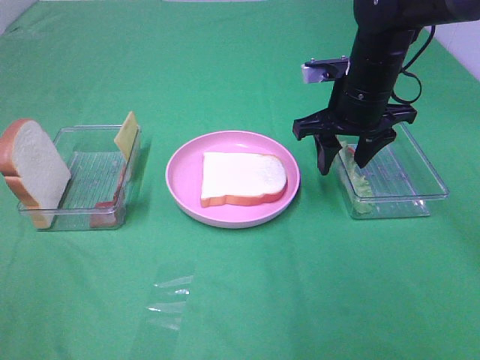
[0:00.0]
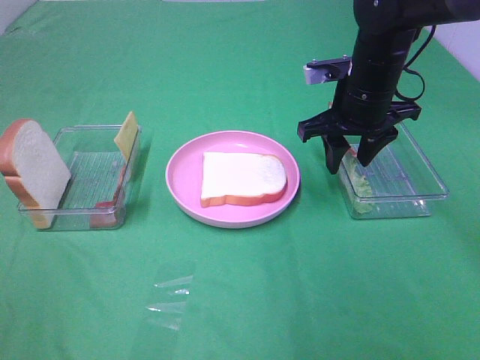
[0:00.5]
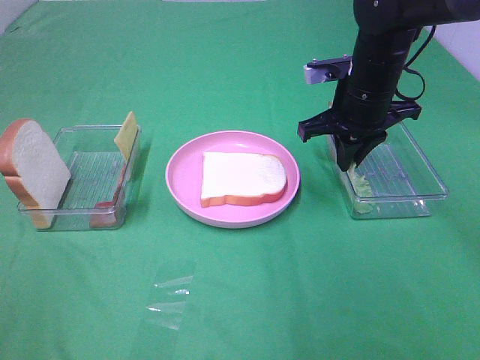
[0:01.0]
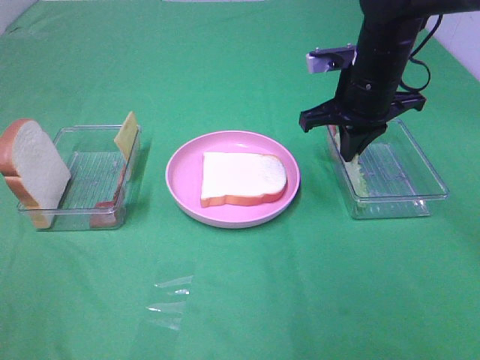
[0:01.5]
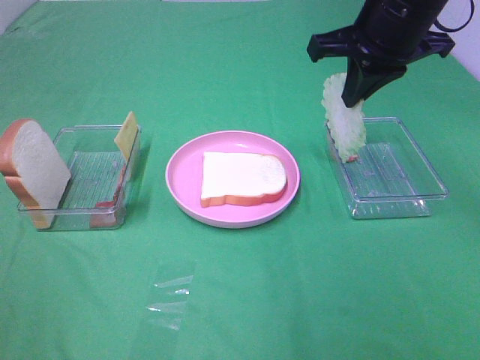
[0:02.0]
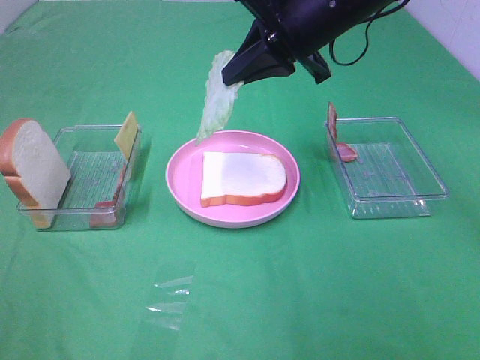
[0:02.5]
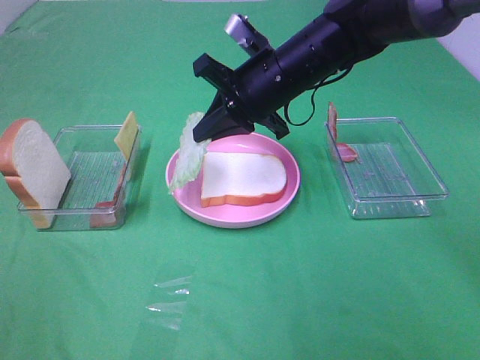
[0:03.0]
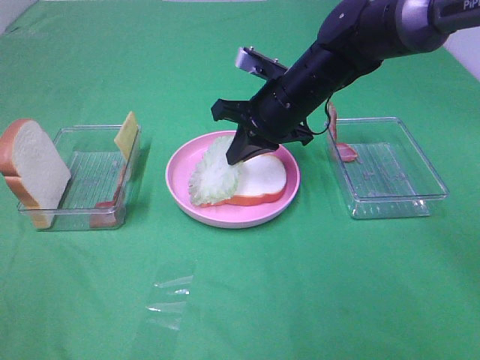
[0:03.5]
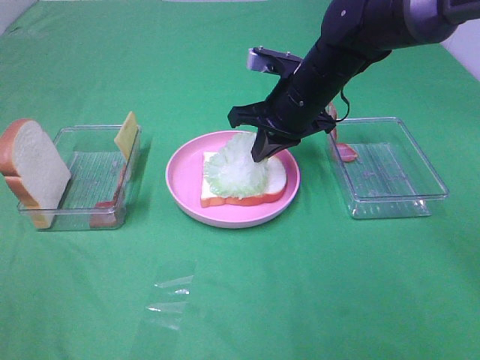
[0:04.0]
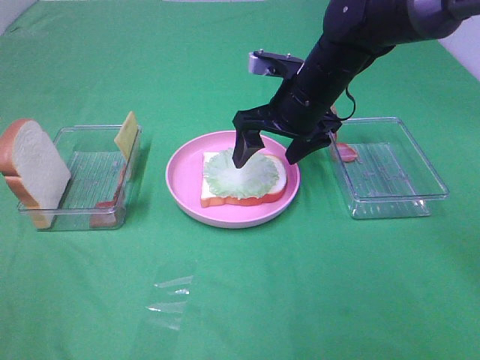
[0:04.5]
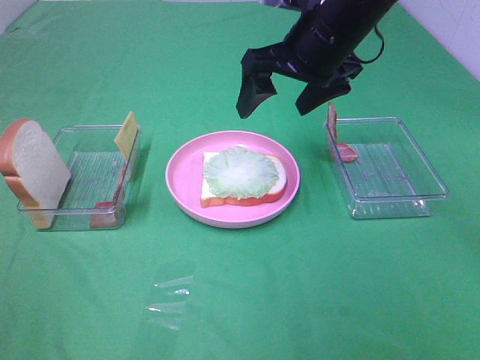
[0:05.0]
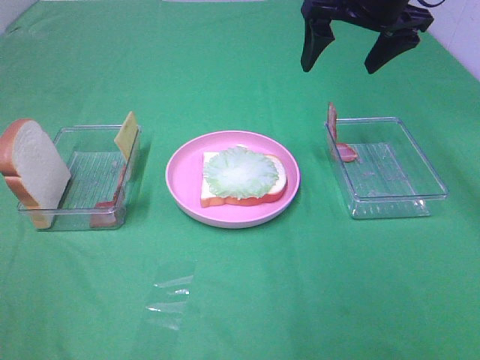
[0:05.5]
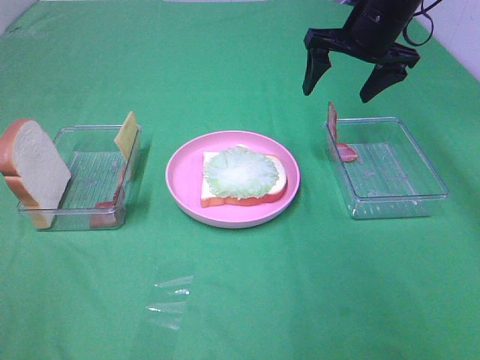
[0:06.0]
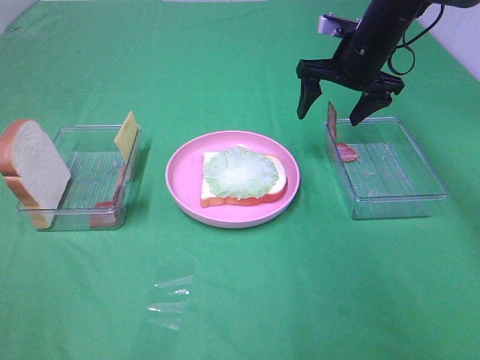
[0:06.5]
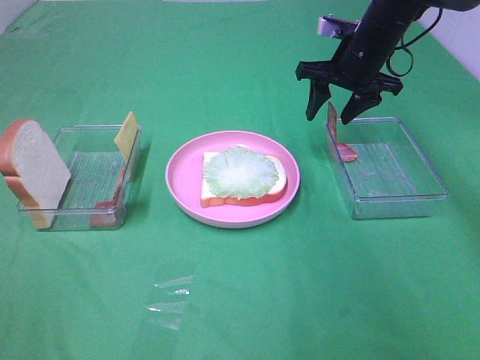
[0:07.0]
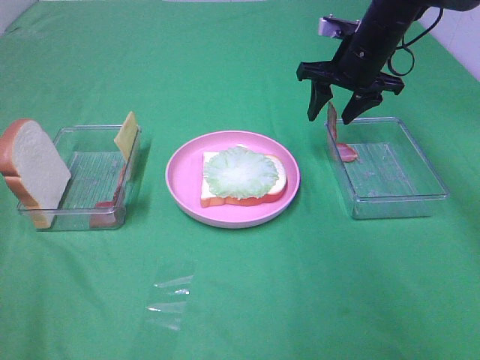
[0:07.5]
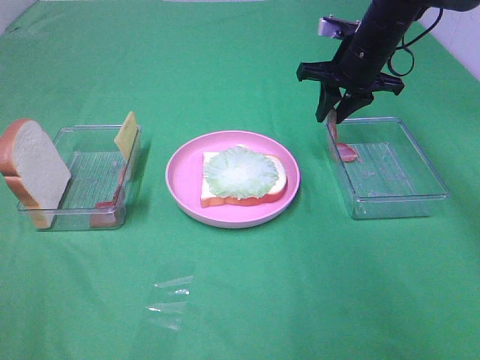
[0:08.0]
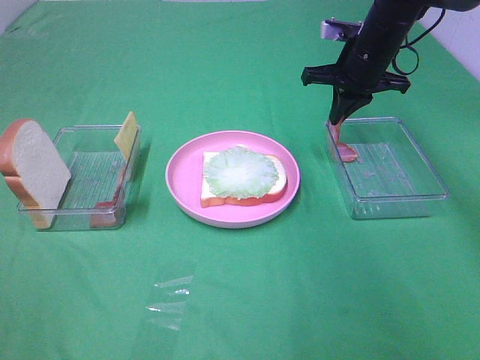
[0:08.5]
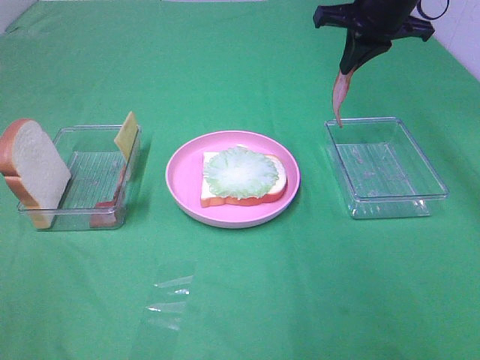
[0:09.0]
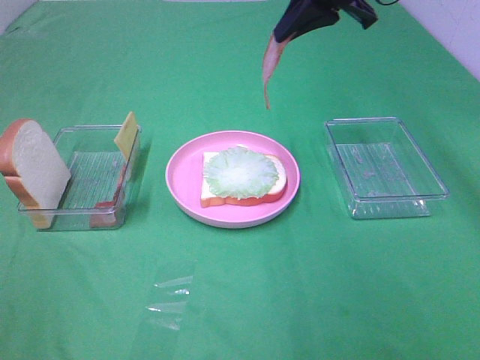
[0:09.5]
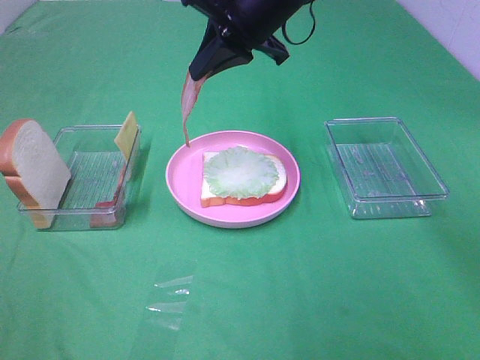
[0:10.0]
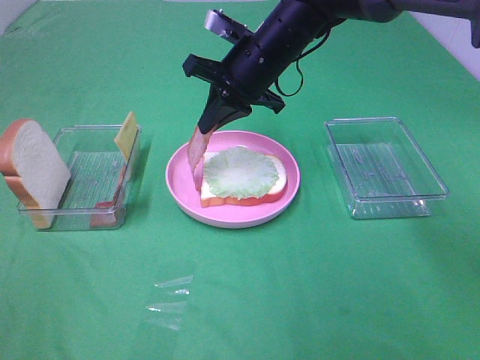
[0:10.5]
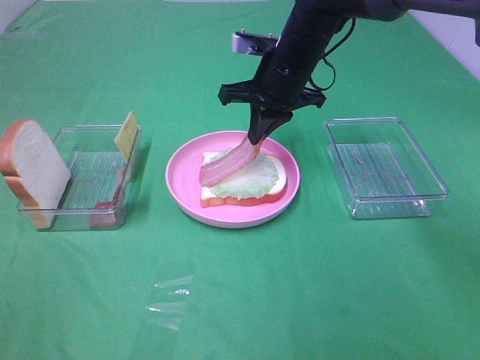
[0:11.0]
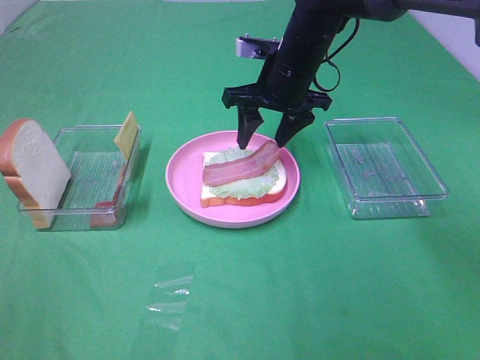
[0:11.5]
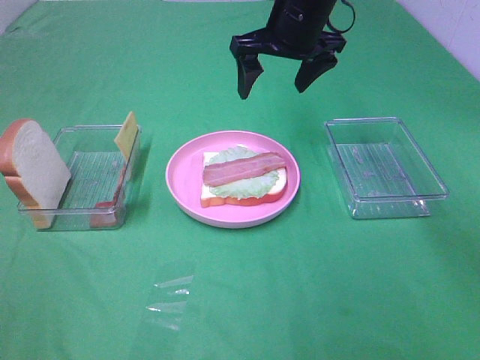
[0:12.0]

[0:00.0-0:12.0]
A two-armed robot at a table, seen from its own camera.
Task of the whole recording: Make sandwiches.
Step, 0:02.0 to 0:04.5: Right hand:place the lettuce slice on the bread slice.
Step, 0:05.0 to 0:08.5: Right hand:grab the bacon.
Step, 0:09.0 to 0:11.5: Right hand:place bacon on lettuce slice.
0:00.0 to 0:02.0: The right gripper travels upward by roughly 10 cm, and closes its fingers.
0:02.0 to 0:04.0: The right gripper goes approximately 15 cm downward and to the left.
0:04.0 to 0:06.0: The right gripper moves to the right, upward and forward, roughly 15 cm, and opens its fingers.
0:06.0 to 0:08.0: The right gripper shifts by some 5 cm, and closes up.
0:08.0 to 0:10.0: The right gripper heads to the left, upward and backward, covering about 20 cm, and closes.
0:10.0 to 0:12.0: The right gripper goes downward and returns, some 10 cm each way, and opens.

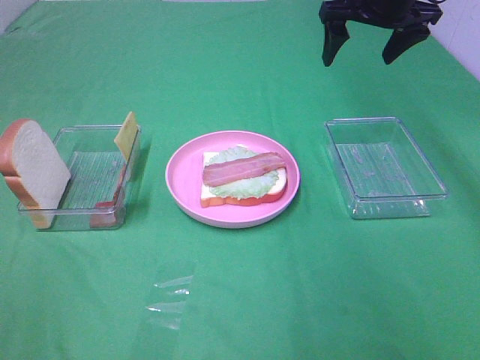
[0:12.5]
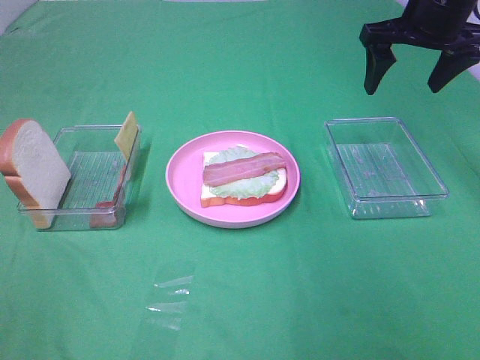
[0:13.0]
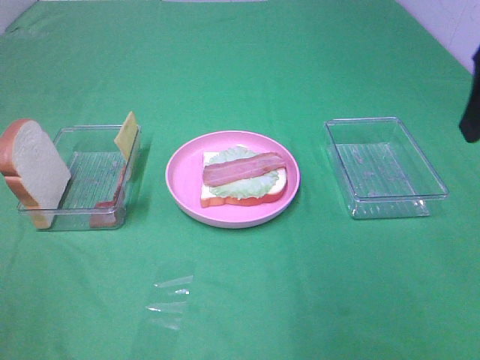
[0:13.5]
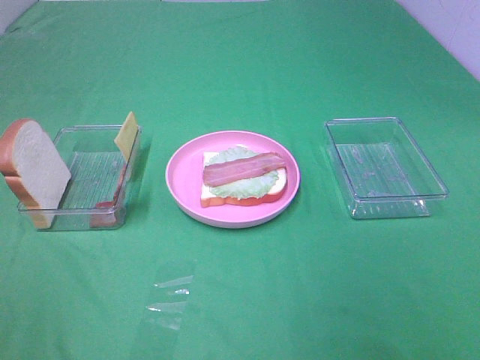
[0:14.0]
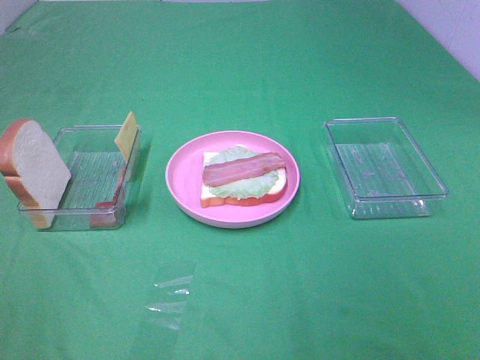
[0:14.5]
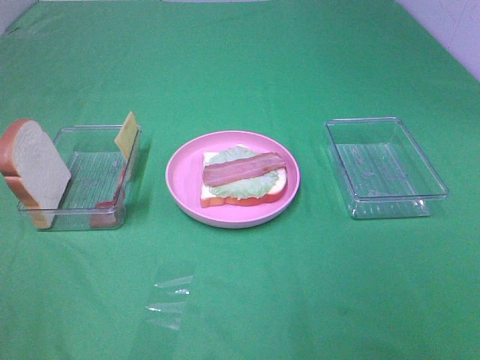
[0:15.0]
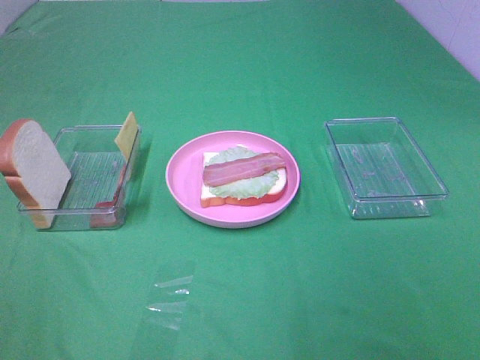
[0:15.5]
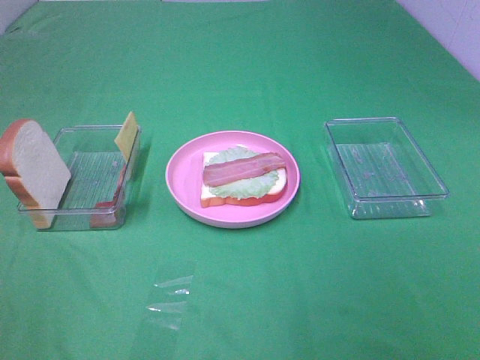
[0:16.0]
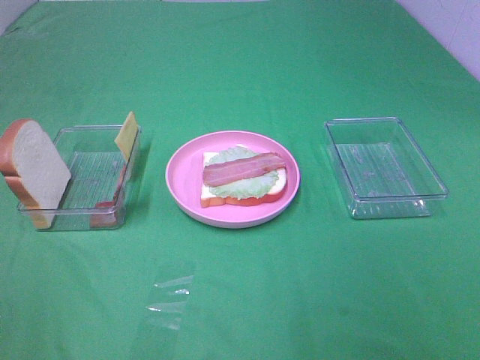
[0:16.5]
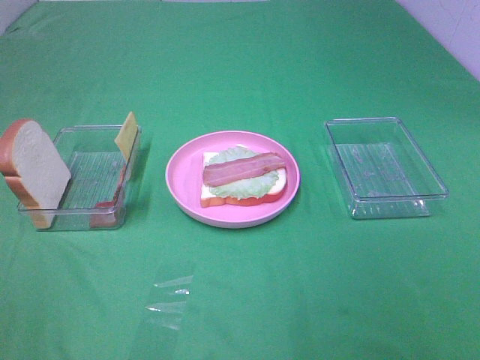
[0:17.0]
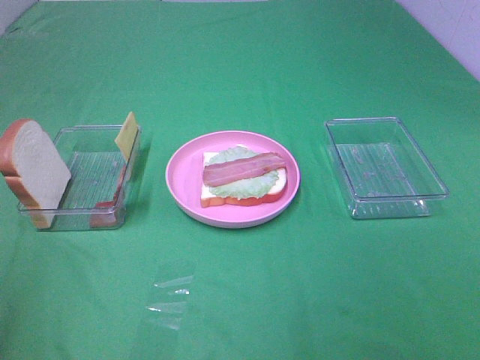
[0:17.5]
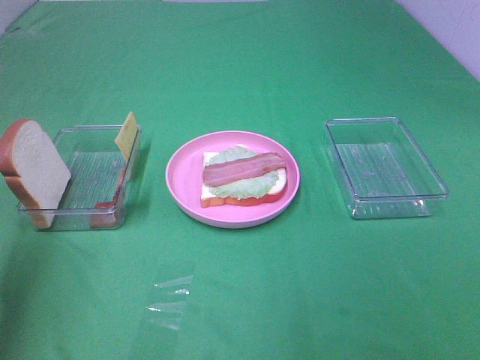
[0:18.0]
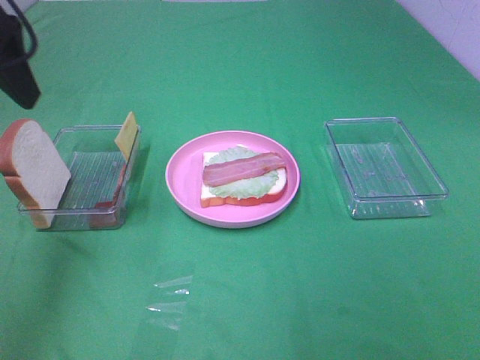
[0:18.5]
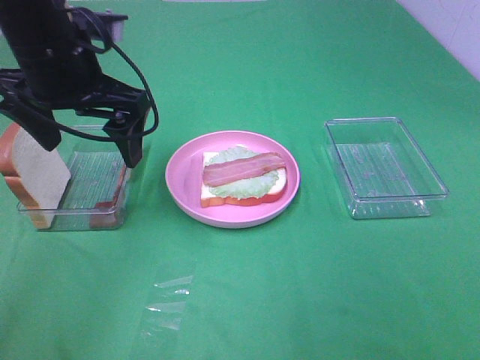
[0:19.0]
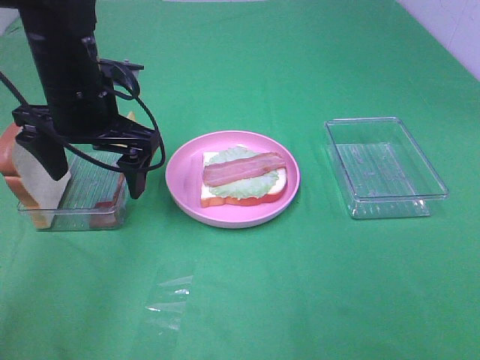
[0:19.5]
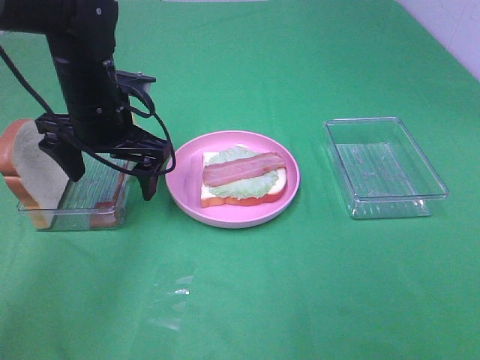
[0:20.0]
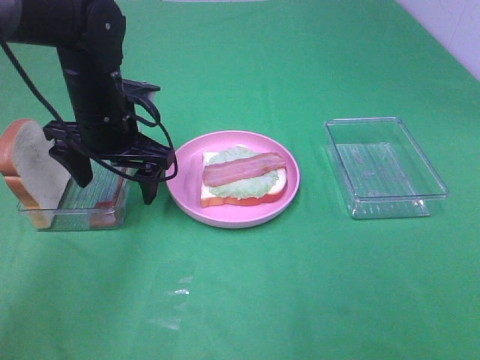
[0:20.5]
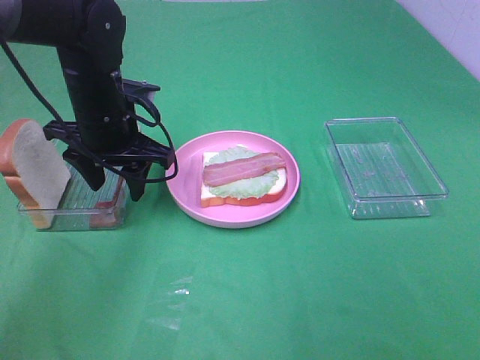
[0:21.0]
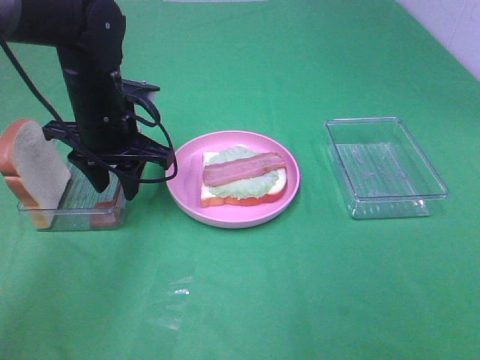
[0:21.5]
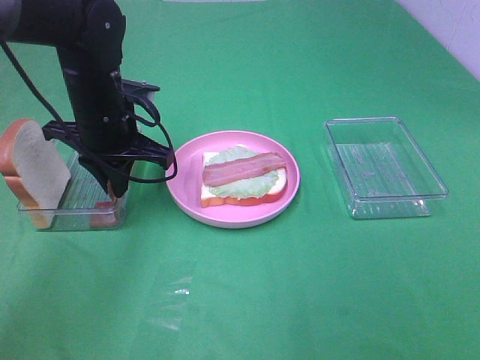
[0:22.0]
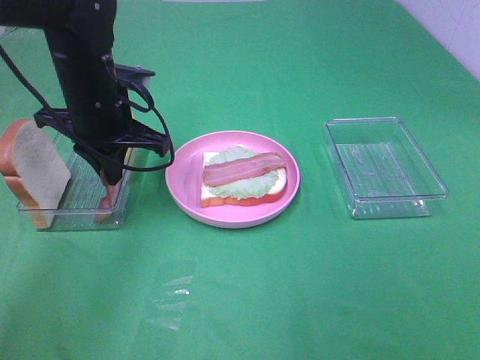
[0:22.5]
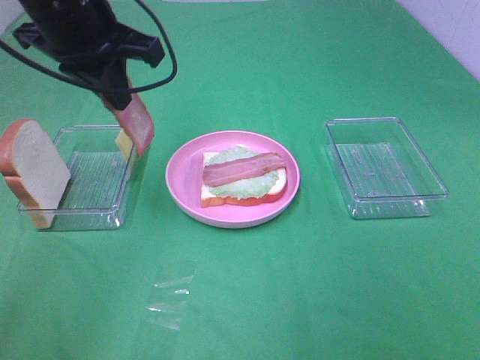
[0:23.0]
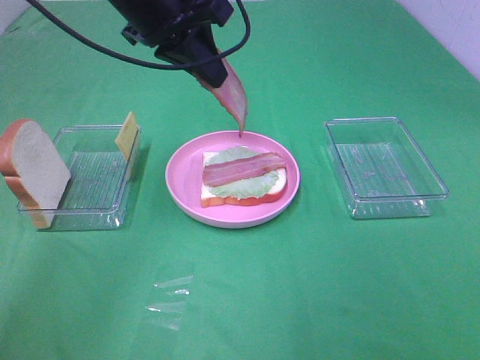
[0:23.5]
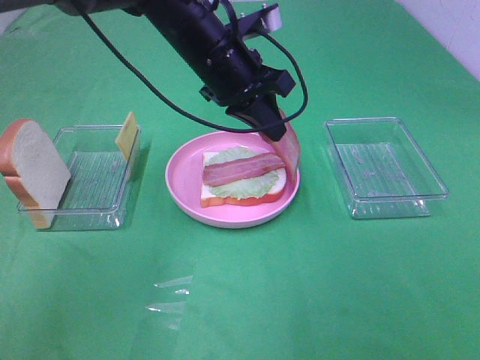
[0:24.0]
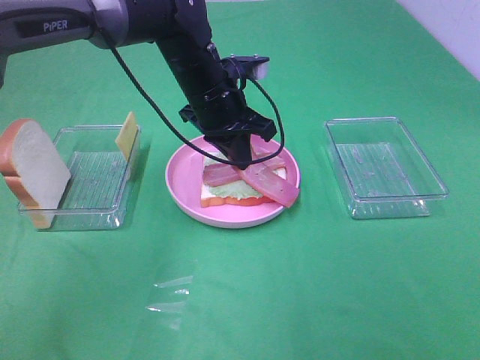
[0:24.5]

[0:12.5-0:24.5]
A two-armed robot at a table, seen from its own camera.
Task of the whole recording: Make sandwiches.
Step, 0:12.5 to 0:22.5: Left hand:grab the bacon.
0:12.5 to 0:14.5: The right gripper shifts roughly 50 cm backward.
0:14.5 to 0:16.5: The two grippers keep their place.
0:16.5 to 0:18.5: The left gripper goes approximately 30 cm forward.
0:18.5 to 0:20.5: The left gripper shifts approximately 20 cm downward, to the right and forward.
0:20.5 to 0:22.5: The left gripper closes its fingers.
0:22.5 to 0:24.5: The left gripper moves to the right, roughly 10 cm, and goes upward and returns, approximately 10 cm each way.

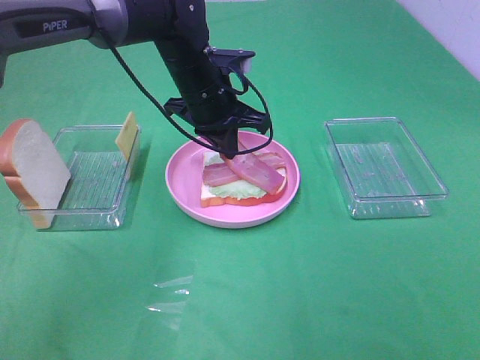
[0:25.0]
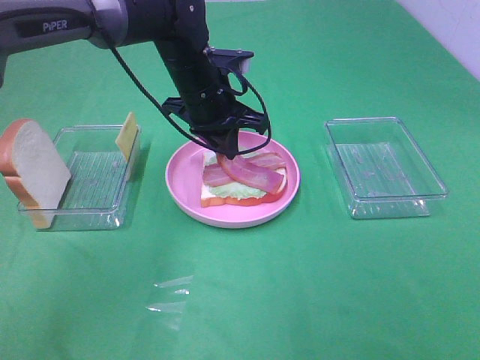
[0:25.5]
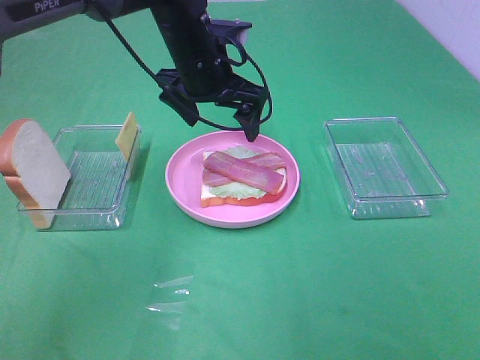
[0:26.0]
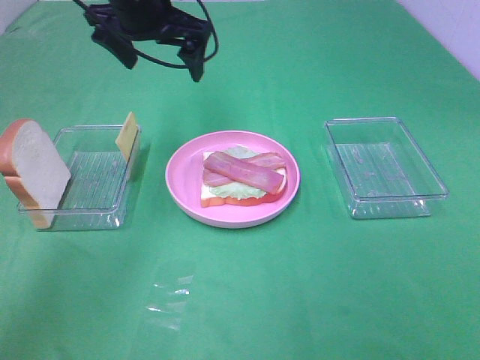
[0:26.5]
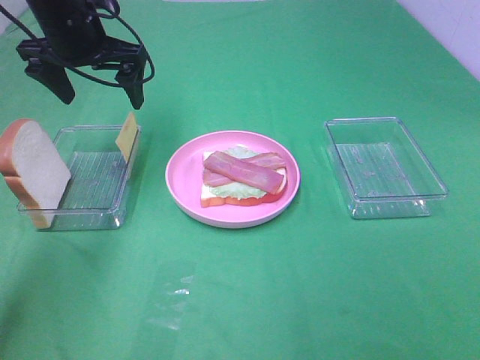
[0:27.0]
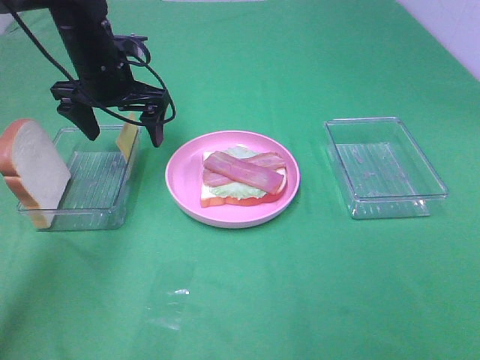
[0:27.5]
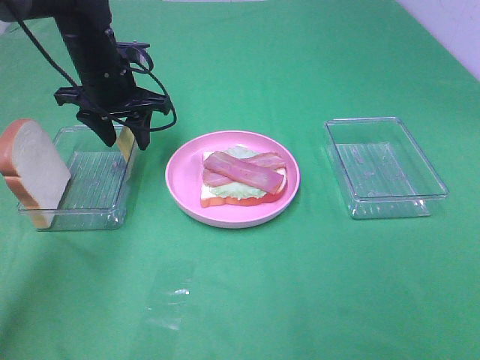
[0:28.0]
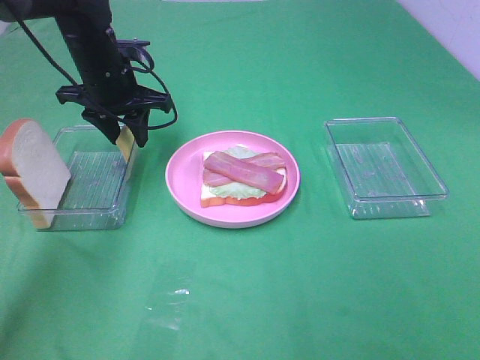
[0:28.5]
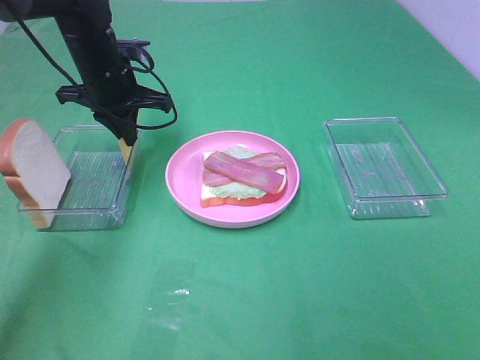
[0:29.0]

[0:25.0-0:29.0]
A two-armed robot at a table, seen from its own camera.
Task of the whole recording: Make sandwiches.
0:25.0 to 0:27.0: The left gripper shifts about 15 cm to the left and upward, and opens its fingers.
0:27.0 to 0:29.0: The left gripper is displaced downward by about 5 cm, and closes its fingers.
